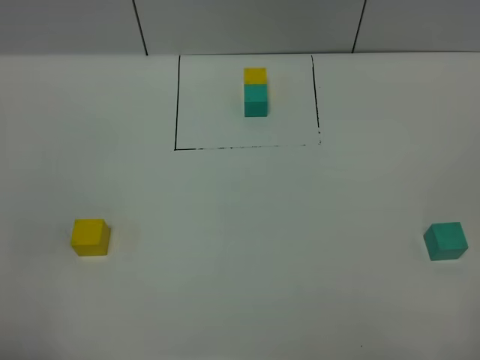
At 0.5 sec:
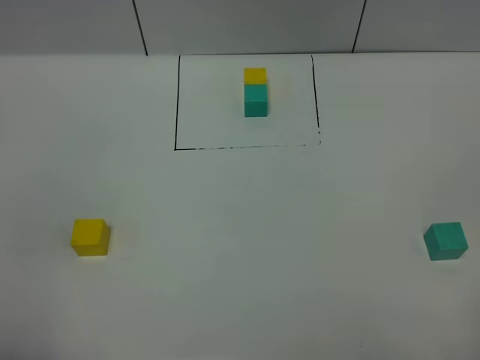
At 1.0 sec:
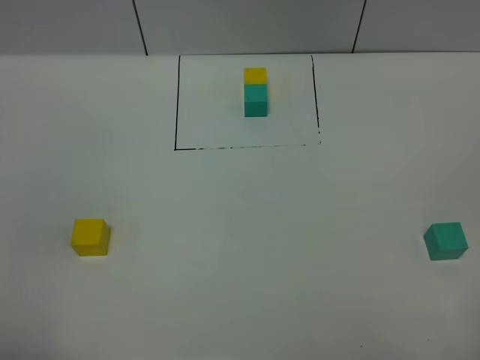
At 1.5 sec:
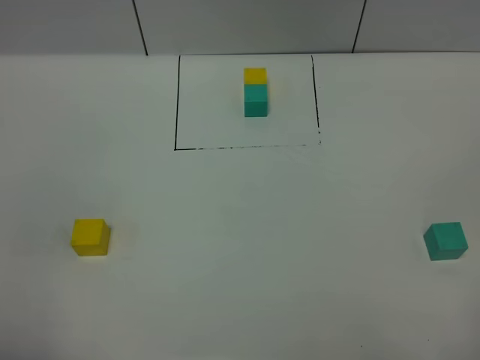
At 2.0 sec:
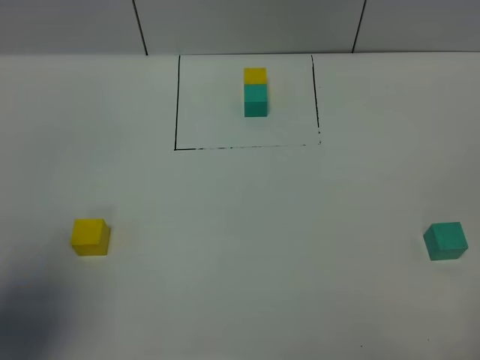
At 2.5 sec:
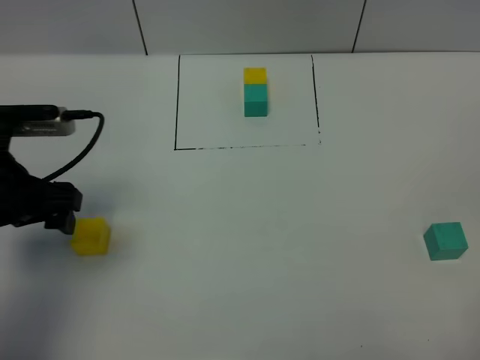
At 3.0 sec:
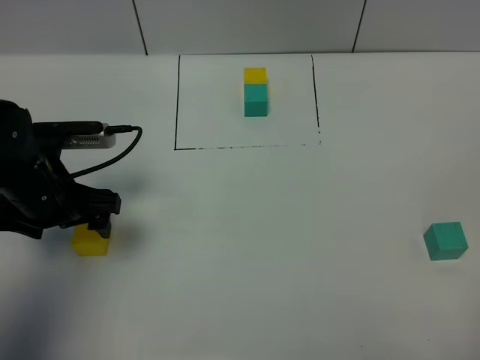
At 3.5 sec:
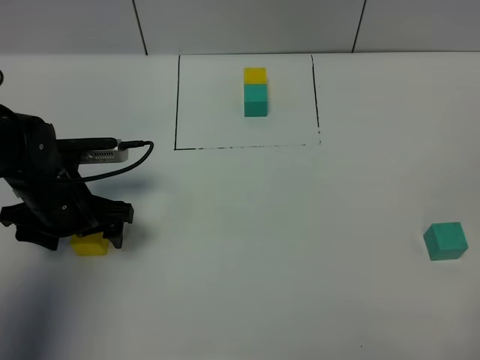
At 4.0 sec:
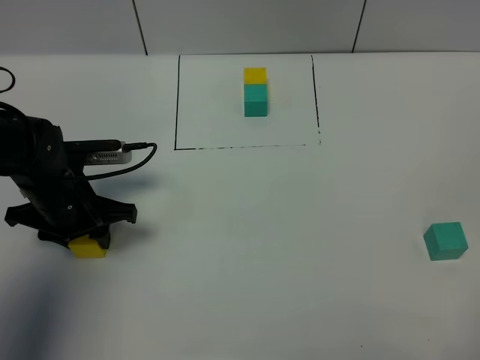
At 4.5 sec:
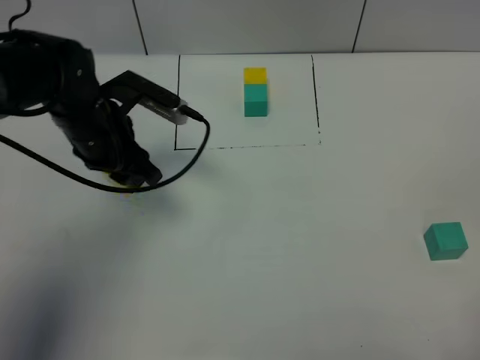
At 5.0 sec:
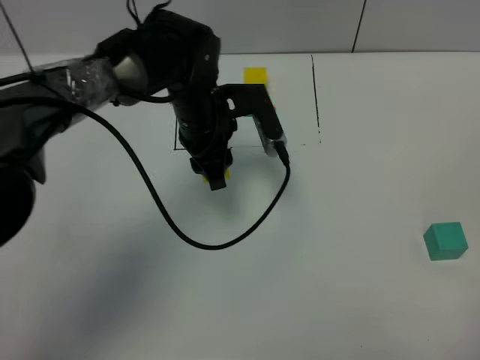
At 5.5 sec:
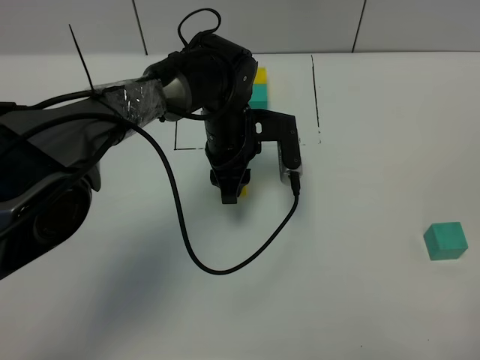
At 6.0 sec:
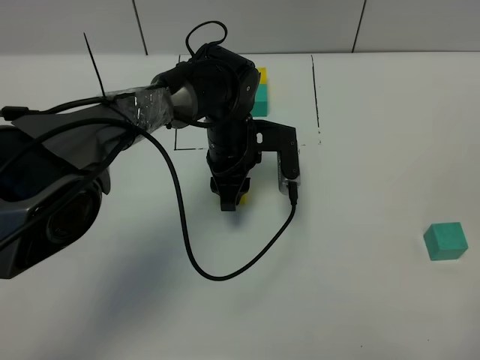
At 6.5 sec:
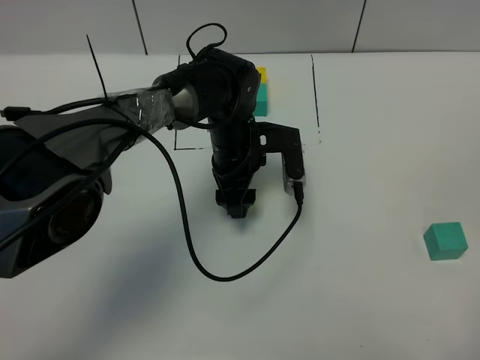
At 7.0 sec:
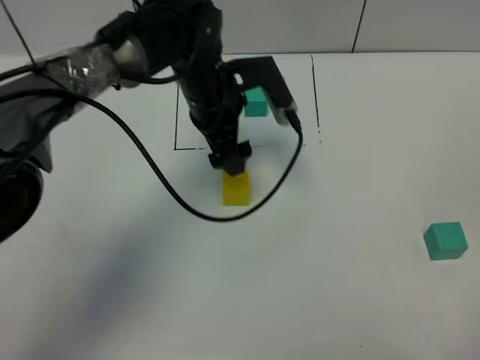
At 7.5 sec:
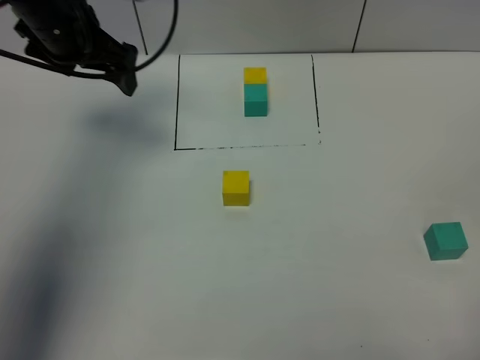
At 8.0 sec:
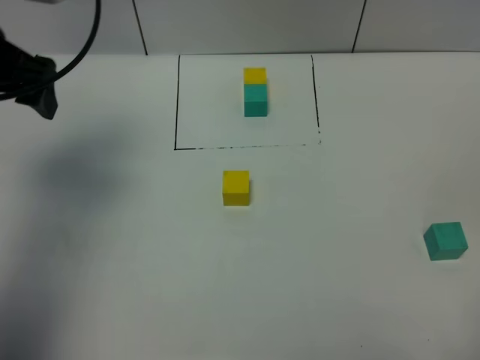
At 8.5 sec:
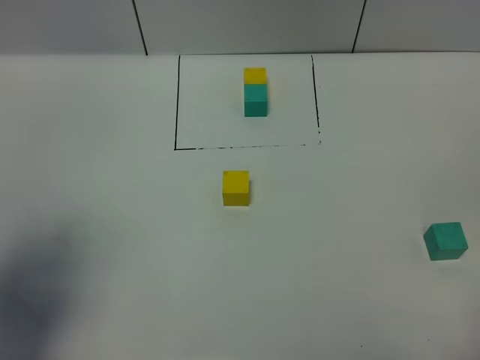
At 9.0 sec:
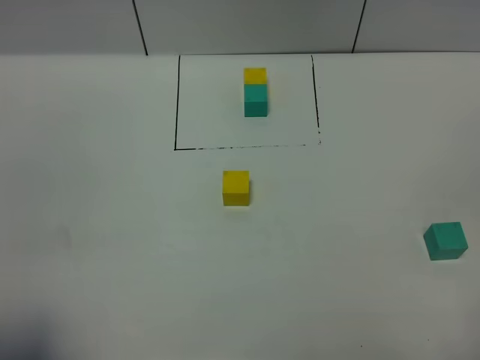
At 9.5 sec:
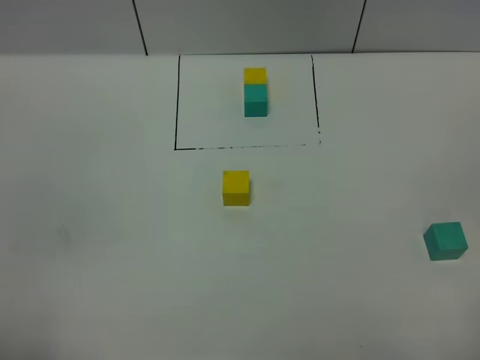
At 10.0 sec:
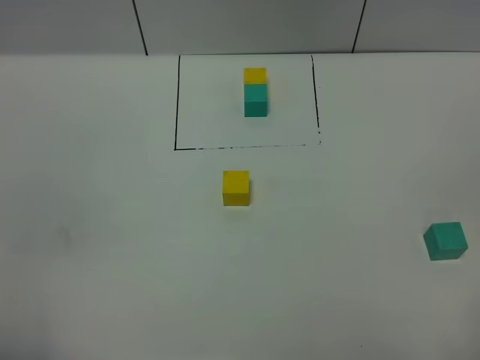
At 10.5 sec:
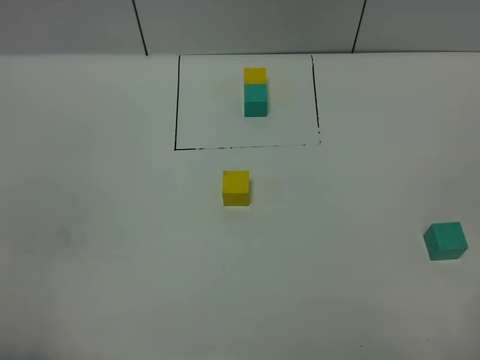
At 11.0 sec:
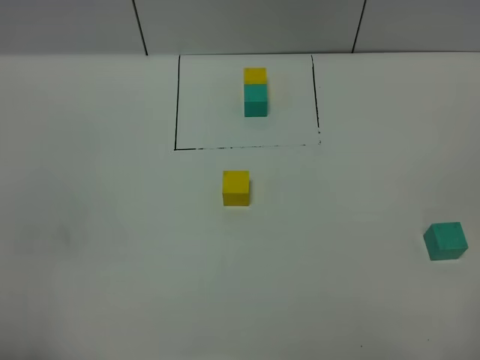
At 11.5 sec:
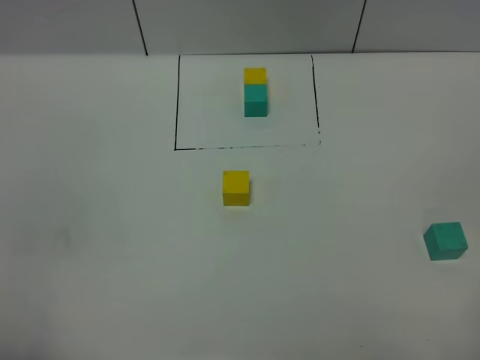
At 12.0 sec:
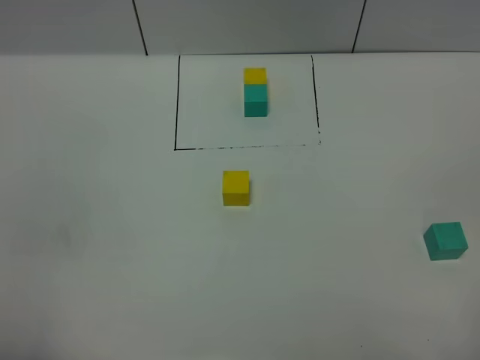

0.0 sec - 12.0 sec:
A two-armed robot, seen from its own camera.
Task of the whole recording: According to the building block template in front, assemble the scattered blocks together.
Step, 2.5 sec - 6.5 sec: Put the yellow cube in the center of the table.
0.0 sec - 2.0 sec: The left gripper travels forward by roughly 15 cm.
2.0 sec - 4.0 sec: The left gripper moves downward and forward, roughly 25 cm, and closes.
4.0 sec - 6.0 sec: The left gripper moves to the right and forward, some 25 cm.
6.0 sec - 8.0 sec: The left gripper moves to the left and upward, some 35 cm, and opens up.
8.0 sec - 10.0 sec: The left gripper is displaced backward by some 35 cm, and closes its fingers.

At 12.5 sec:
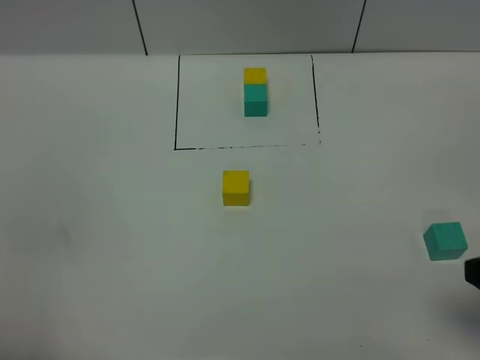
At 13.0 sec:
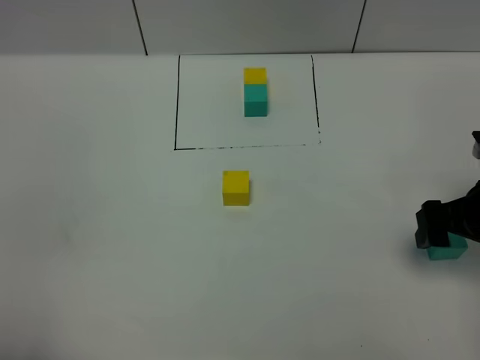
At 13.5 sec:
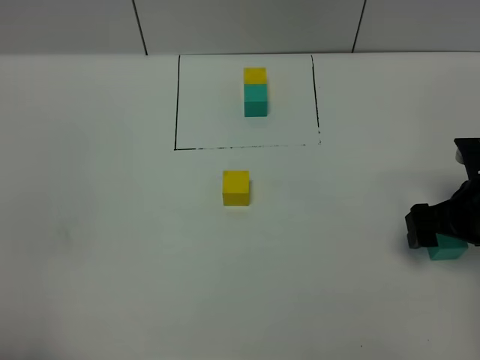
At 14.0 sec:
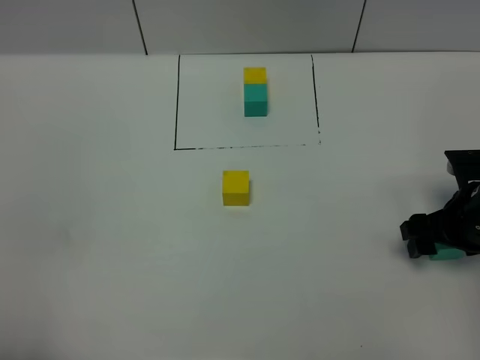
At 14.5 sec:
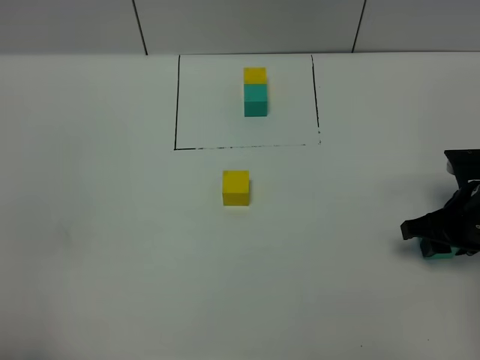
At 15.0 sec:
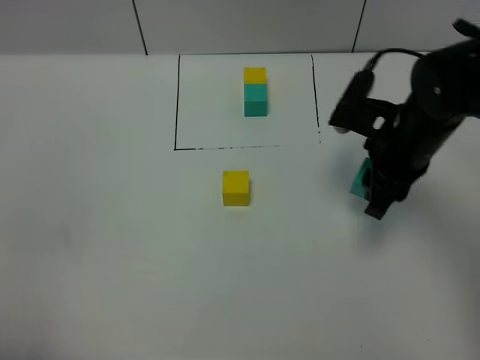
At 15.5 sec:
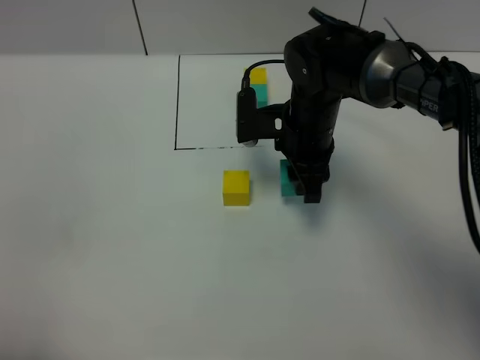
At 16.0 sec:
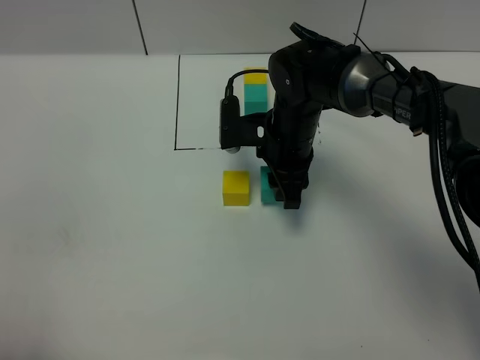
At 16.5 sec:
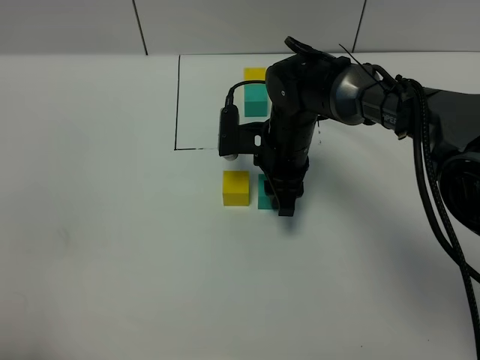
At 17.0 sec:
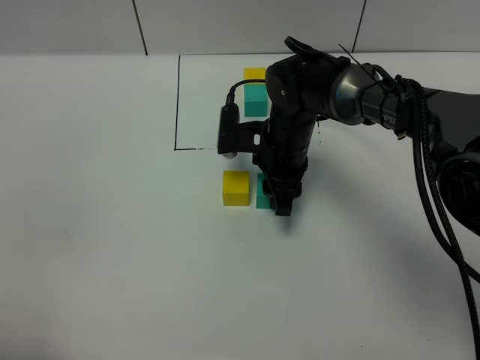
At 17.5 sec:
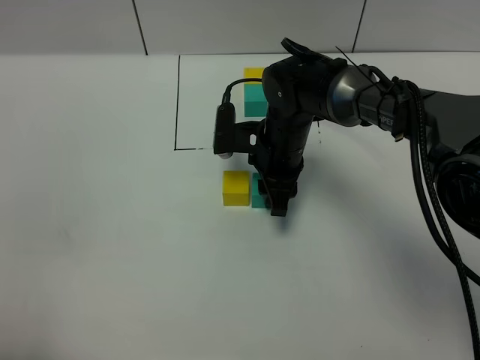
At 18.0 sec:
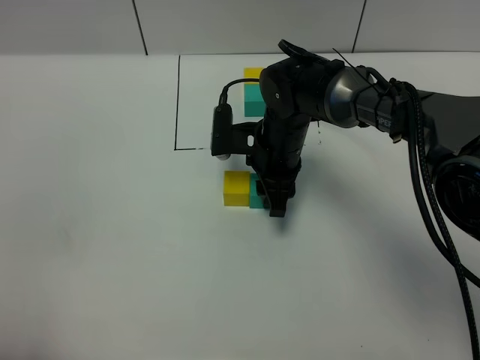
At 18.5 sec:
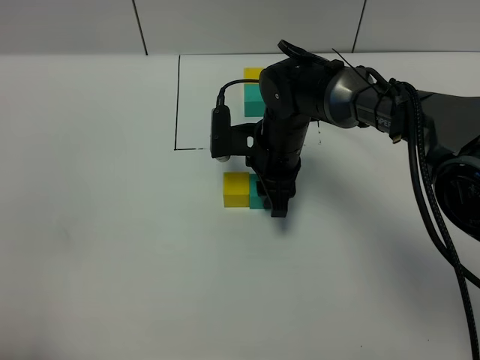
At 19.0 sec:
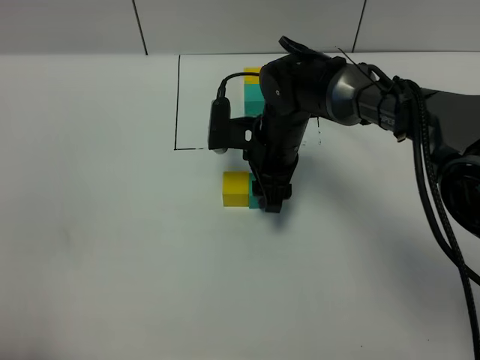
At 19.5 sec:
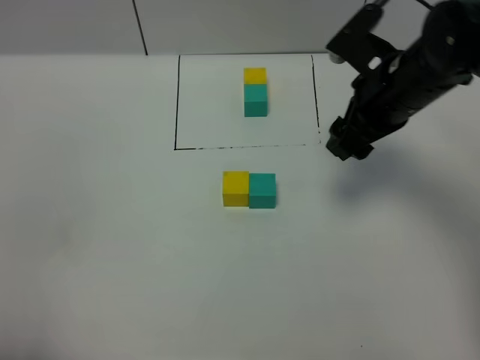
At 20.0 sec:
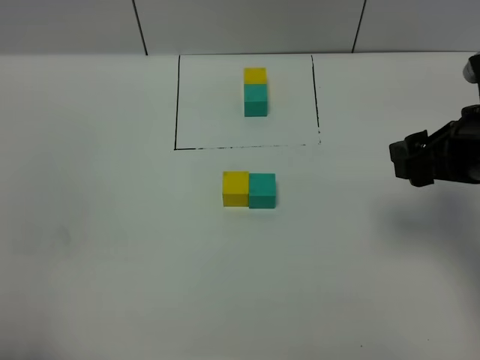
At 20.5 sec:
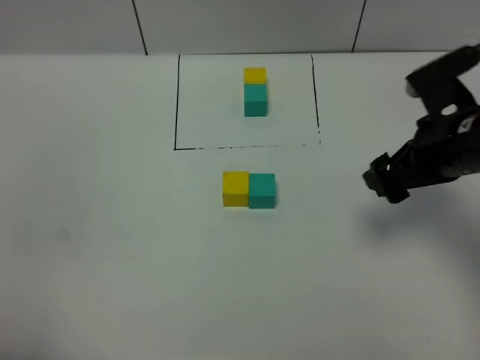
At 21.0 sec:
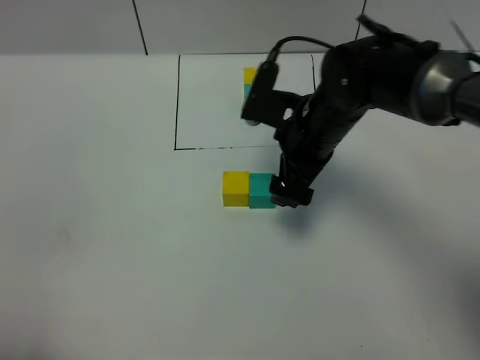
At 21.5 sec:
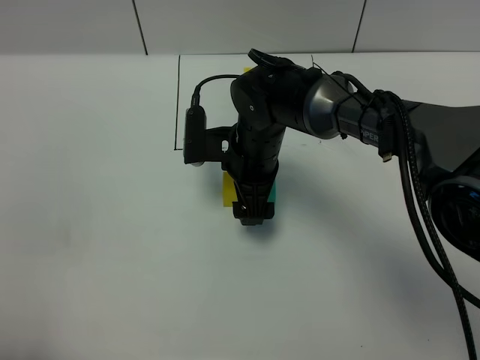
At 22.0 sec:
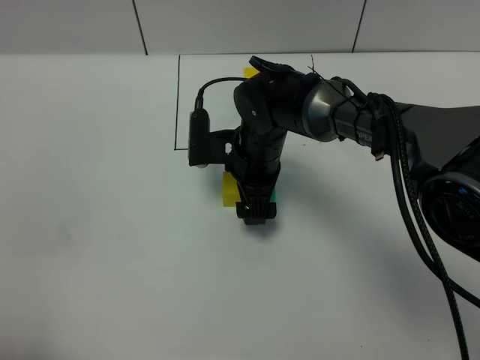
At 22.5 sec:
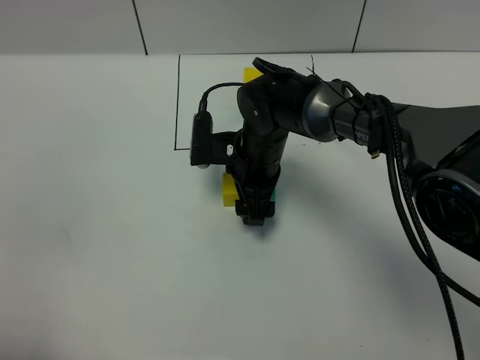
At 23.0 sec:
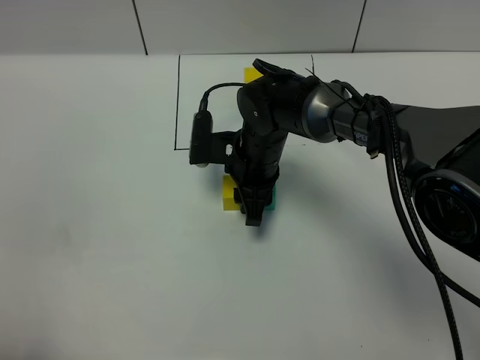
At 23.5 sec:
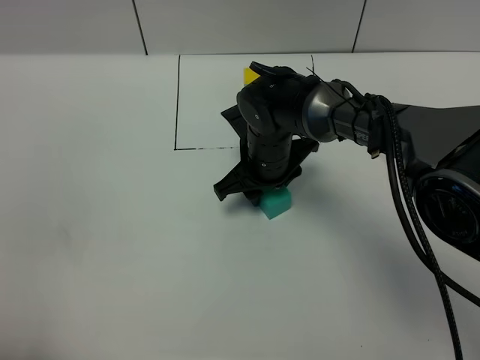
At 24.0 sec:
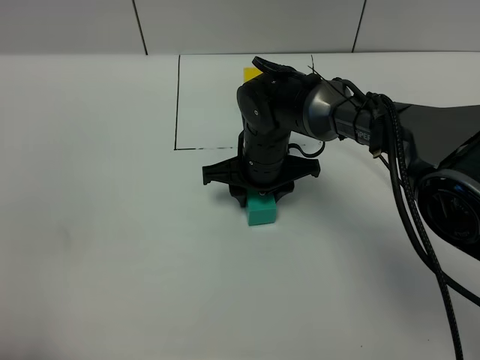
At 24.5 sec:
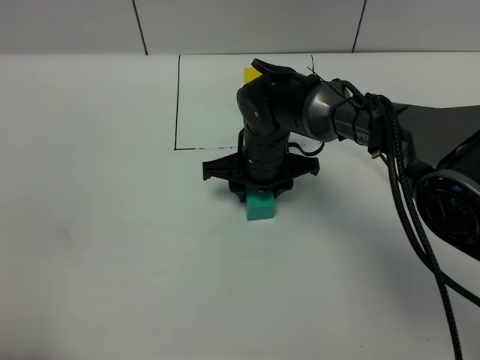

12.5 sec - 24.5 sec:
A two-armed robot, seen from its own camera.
Task of the whole recording: According to the building block template in front, assemble the scattered blocks together.
Step, 12.5 sec - 19.0 sec: Put the green cube on the right of the yellow cube.
12.5 sec - 14.5 sec: The right gripper is displaced forward and downward by approximately 20 cm, and closes up.
14.5 sec - 16.5 sec: The right gripper shifts approximately 25 cm to the left and forward.
16.5 sec - 18.5 sec: Neither gripper changes place.
18.5 sec - 20.5 sec: The right gripper moves to the right, upward and backward, about 25 cm, and opens up.
20.5 sec - 22.5 sec: The right gripper is displaced to the left, downward and forward by roughly 25 cm.
22.5 sec - 24.5 sec: The right gripper closes its fingers.

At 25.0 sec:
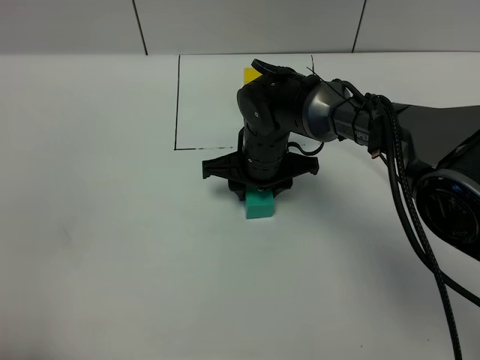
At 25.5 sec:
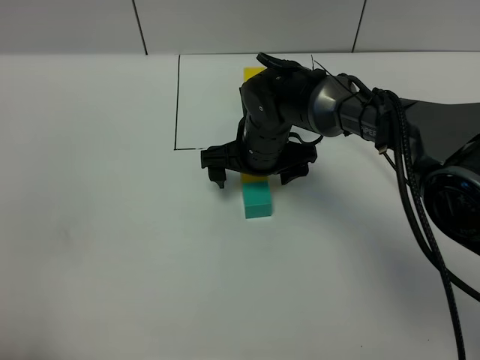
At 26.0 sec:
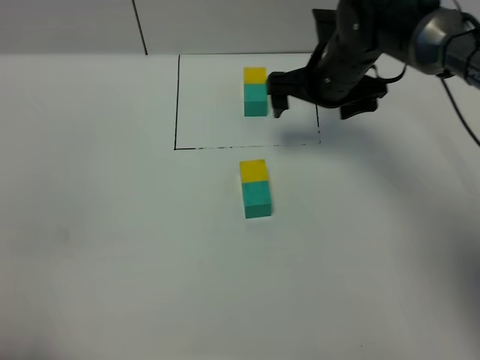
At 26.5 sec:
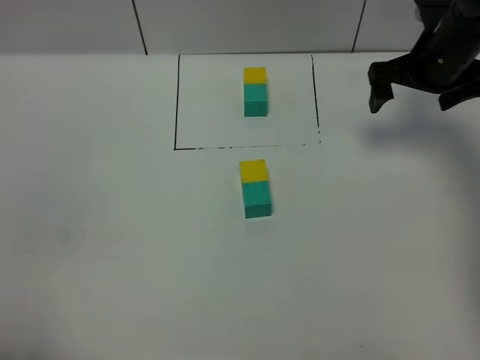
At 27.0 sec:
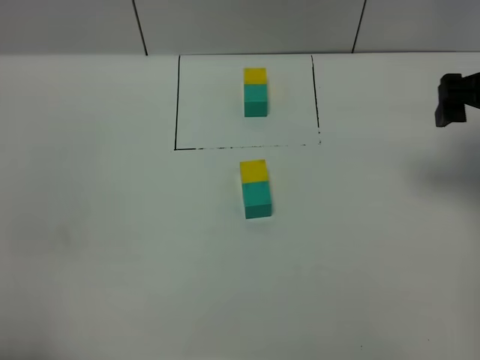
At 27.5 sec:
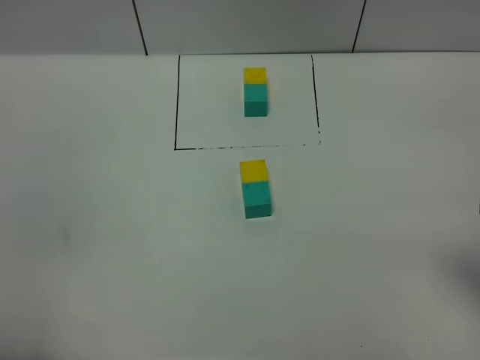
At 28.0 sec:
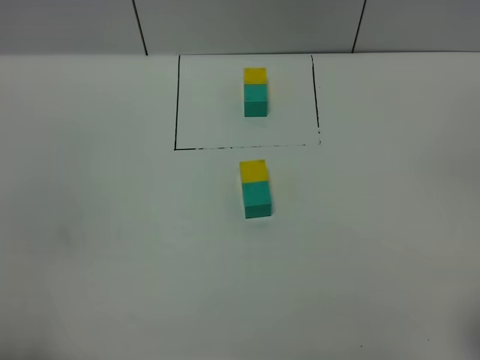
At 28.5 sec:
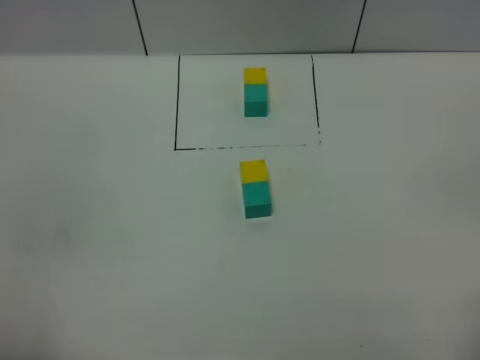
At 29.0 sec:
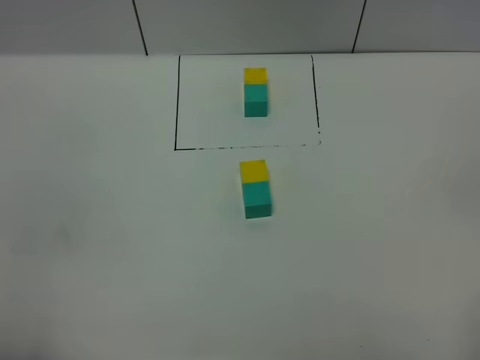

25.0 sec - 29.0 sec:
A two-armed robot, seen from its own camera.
Task of the whole recording: According to the building block template in front, assemble the scattered blocks together.
25.0 sec - 27.0 sec: The right gripper travels to the right and upward by approximately 30 cm, and opens up.
27.0 sec - 29.0 sec: The right gripper heads backward, covering approximately 30 cm.
